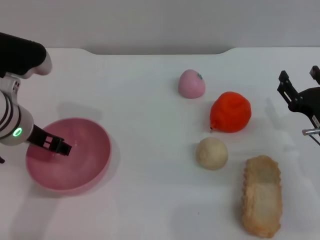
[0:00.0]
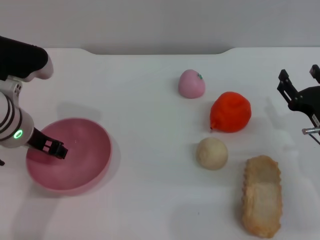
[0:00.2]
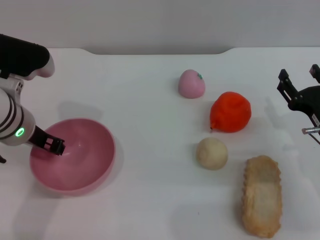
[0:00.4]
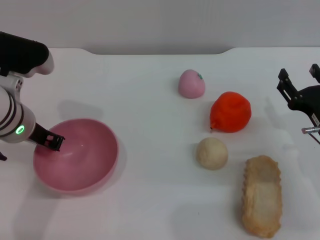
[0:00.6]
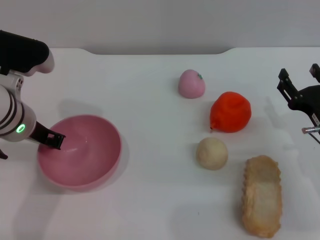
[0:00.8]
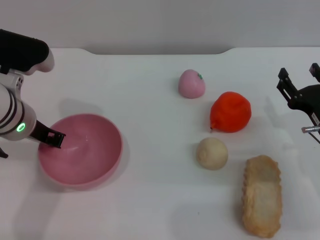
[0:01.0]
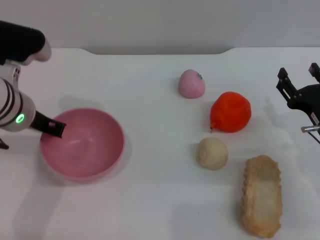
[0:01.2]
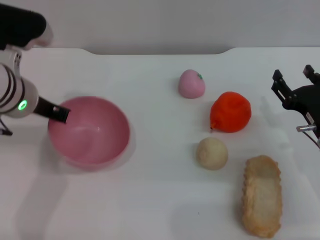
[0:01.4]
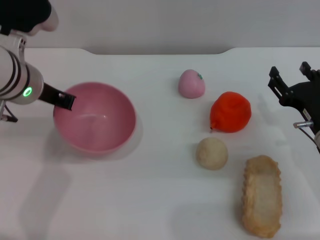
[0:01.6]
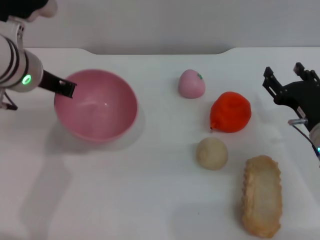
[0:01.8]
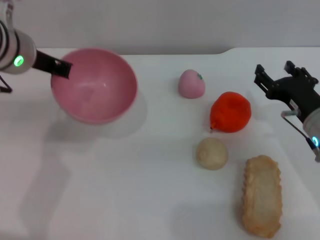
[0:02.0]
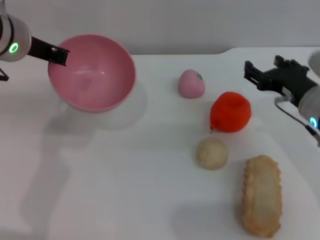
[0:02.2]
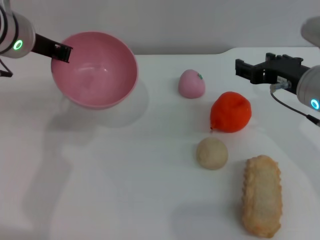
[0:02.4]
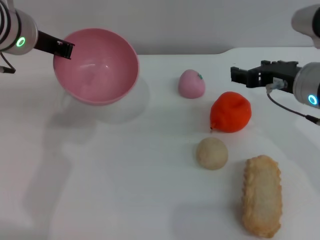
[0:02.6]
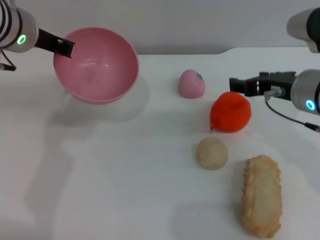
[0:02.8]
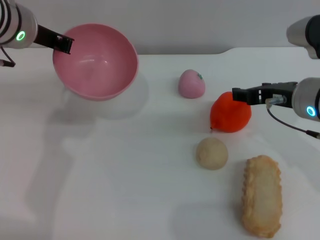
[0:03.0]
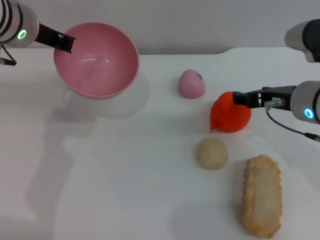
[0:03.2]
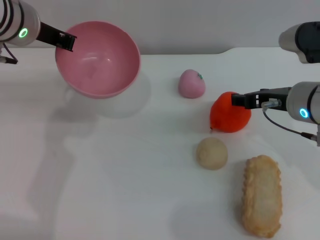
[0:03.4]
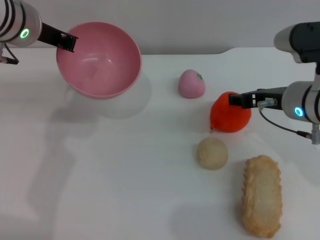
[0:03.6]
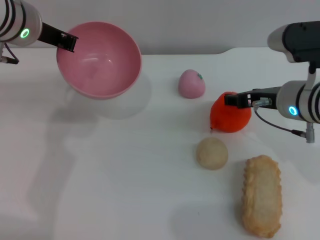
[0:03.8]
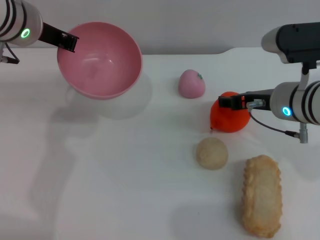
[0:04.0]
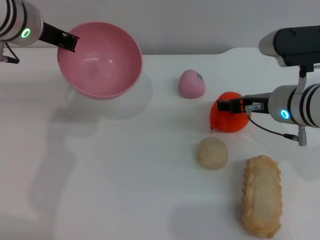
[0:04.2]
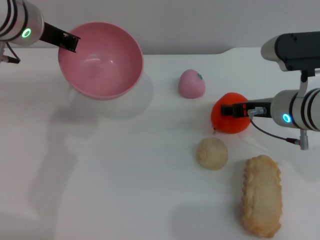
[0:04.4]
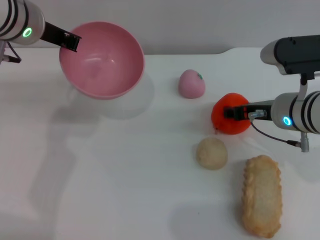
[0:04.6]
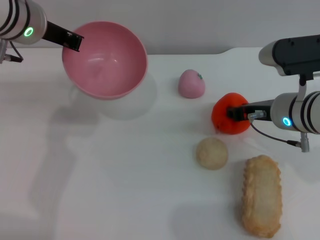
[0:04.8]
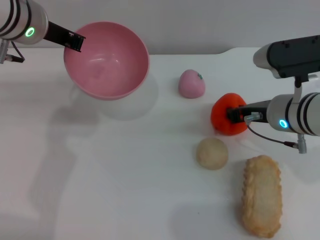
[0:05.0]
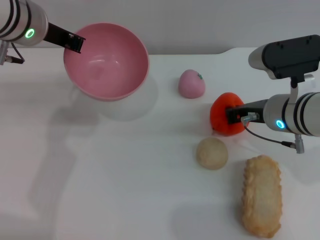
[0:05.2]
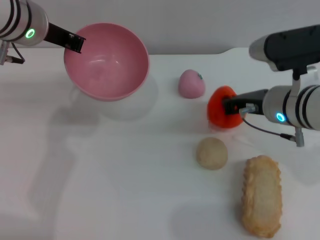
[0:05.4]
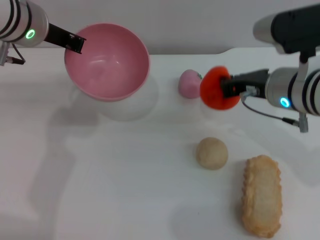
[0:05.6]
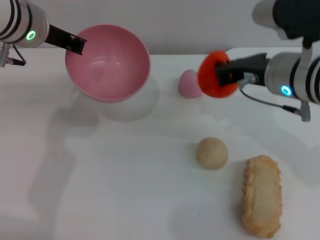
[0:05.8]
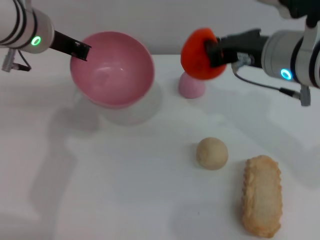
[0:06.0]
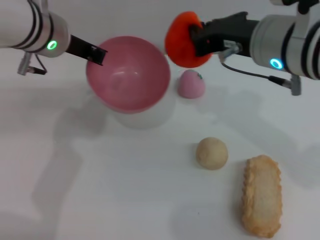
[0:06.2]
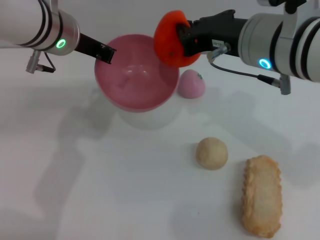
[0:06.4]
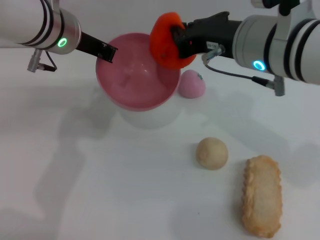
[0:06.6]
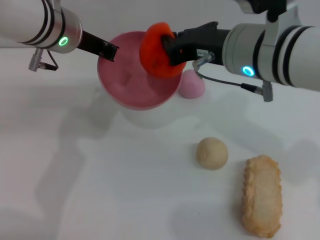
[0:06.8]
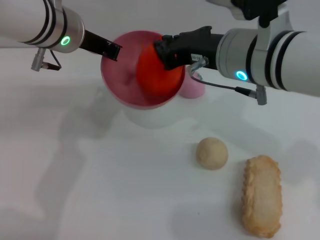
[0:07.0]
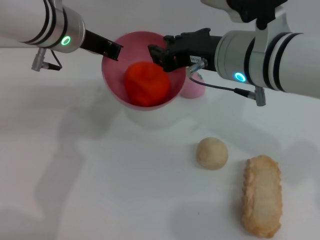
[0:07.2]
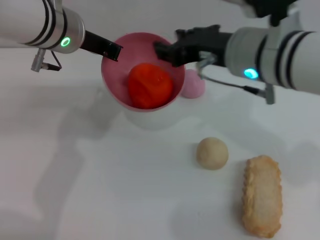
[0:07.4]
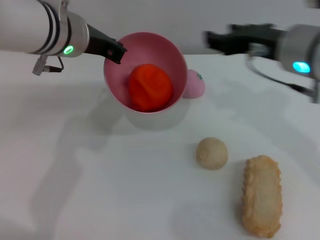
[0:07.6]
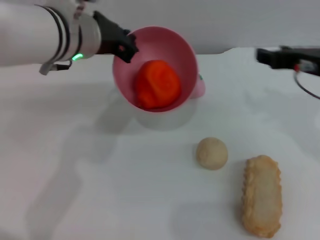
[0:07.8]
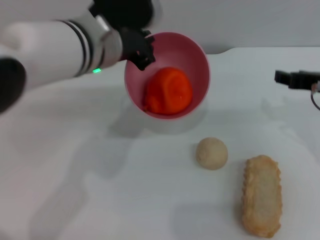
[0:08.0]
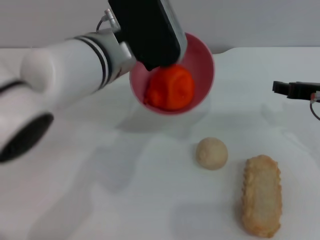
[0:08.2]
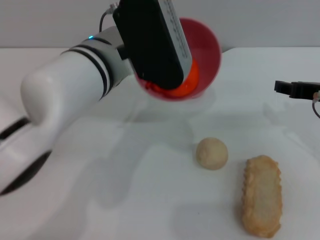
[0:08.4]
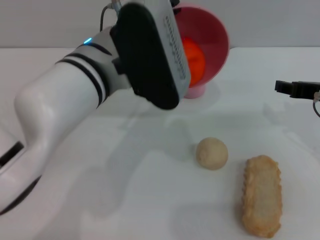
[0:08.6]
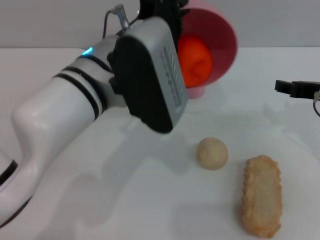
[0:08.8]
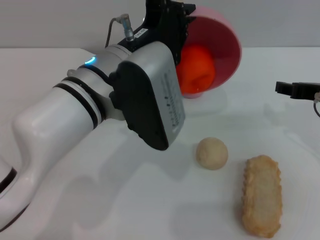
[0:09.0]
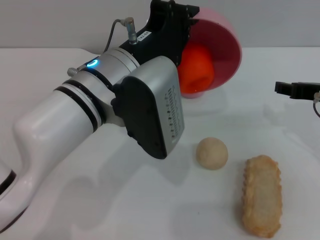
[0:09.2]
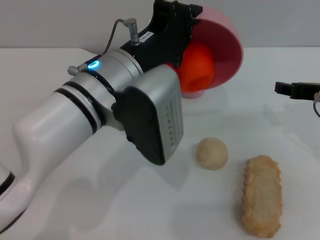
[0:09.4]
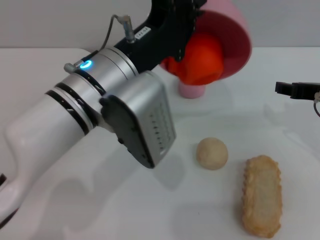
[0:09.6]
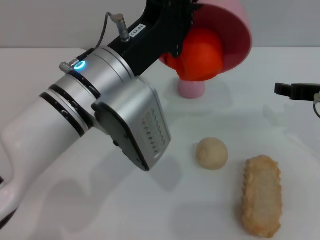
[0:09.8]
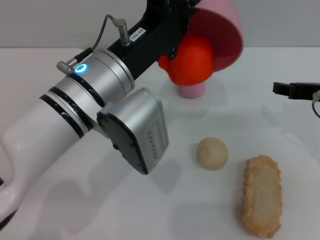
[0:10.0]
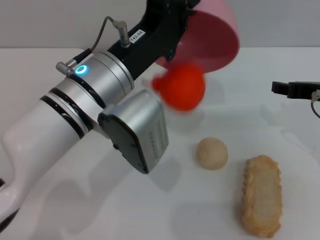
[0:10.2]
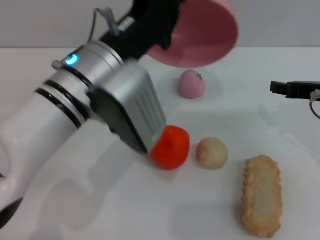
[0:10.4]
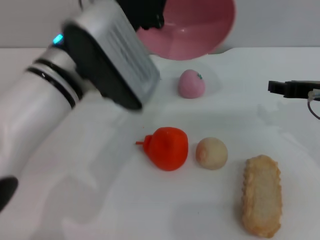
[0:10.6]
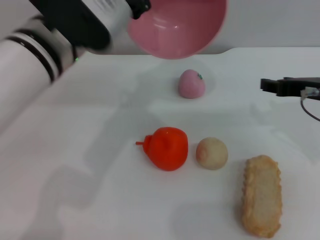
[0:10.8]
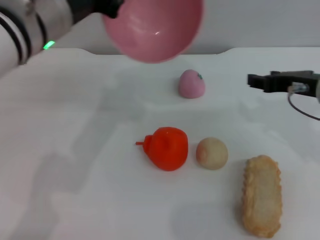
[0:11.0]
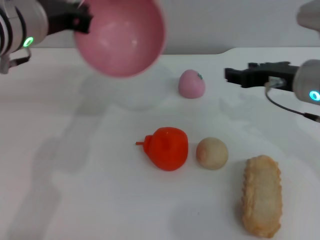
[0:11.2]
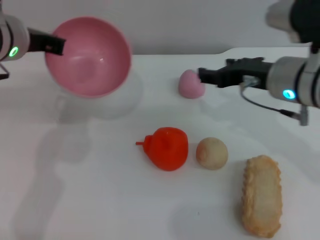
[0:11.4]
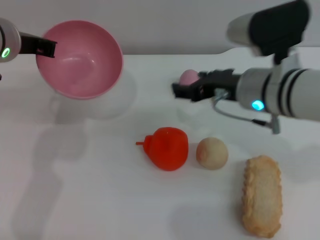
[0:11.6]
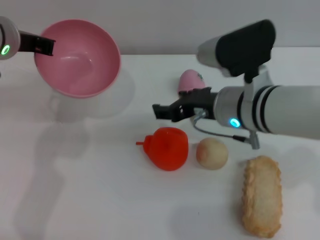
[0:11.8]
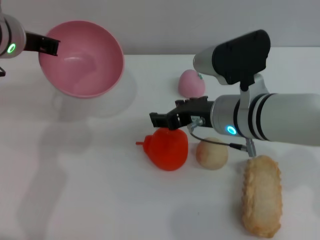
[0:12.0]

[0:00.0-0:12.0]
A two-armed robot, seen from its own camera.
Task of the whole recording: put the orange into the pink bowl and pour it out repeatedly.
Step, 0:02.0 to 0:05.6: Pick up the orange with the right gripper.
Step, 0:05.8 to 0:07.2: Place the orange into the bowl.
Step, 0:07.4 to 0:10.6: Pour the orange out of the bowl.
0:00.0 to 0:01.6: The left gripper closes up.
0:01.6 to 0:03.0: The left gripper moves roughly 5 cm. The right gripper is displaced upward and to the left by roughly 15 cm.
0:03.0 to 0:04.4: The right gripper shifts by approximately 5 cm.
0:04.4 to 0:06.0: The right gripper heads upward, covering roughly 10 cm, and closes its fingers.
0:06.0 to 0:07.6: The right gripper opens up.
0:07.6 to 0:09.0: The left gripper goes about 10 cm backward and to the right. Meanwhile the right gripper travels to the right and downward by about 10 cm.
0:10.4 to 0:12.0: The right gripper goes some 15 cm to the left. The left gripper travels to the left and forward by approximately 15 cm.

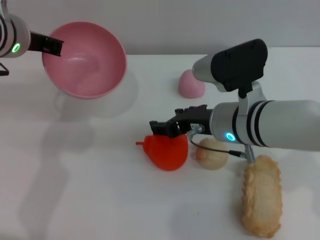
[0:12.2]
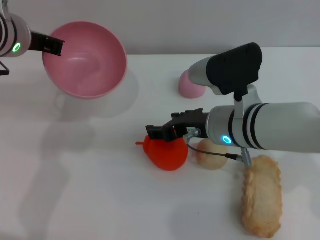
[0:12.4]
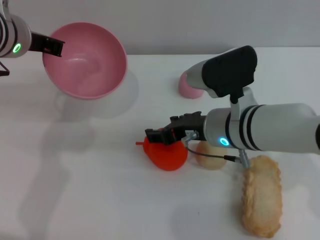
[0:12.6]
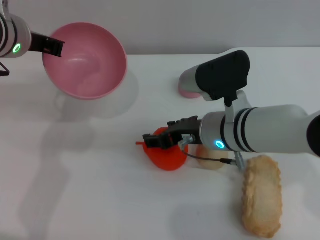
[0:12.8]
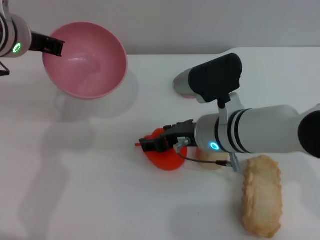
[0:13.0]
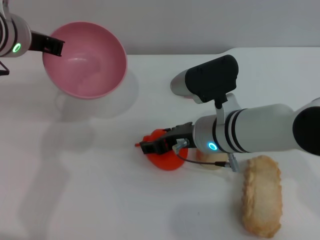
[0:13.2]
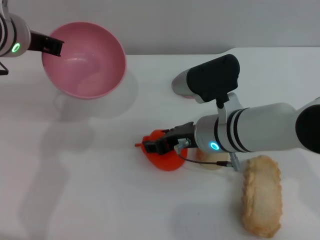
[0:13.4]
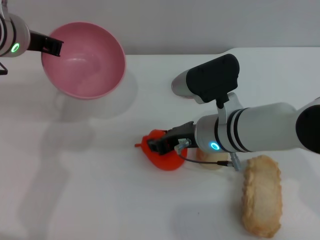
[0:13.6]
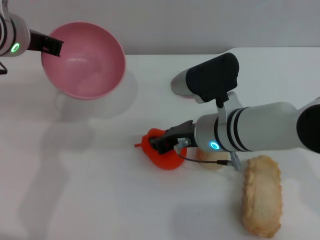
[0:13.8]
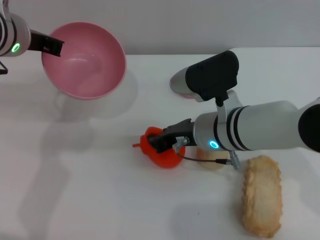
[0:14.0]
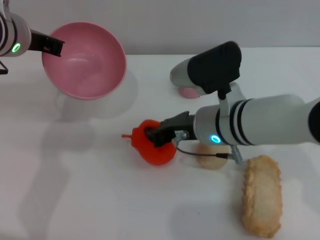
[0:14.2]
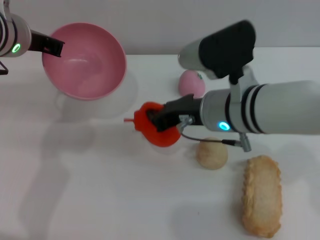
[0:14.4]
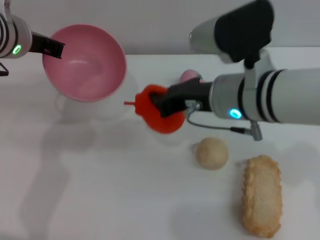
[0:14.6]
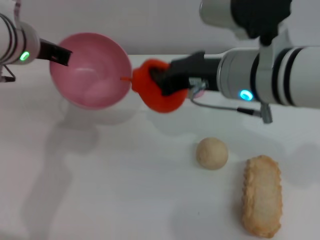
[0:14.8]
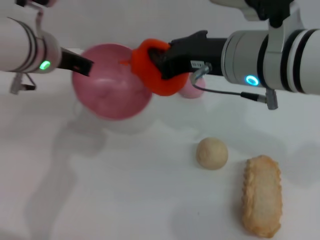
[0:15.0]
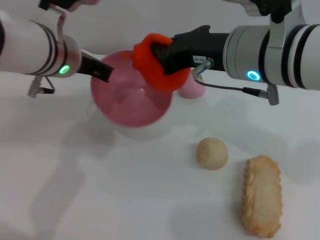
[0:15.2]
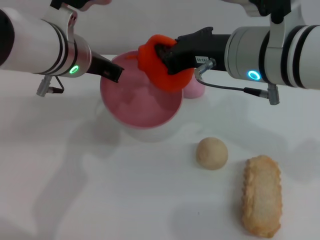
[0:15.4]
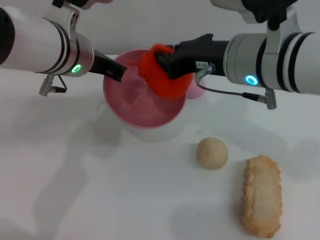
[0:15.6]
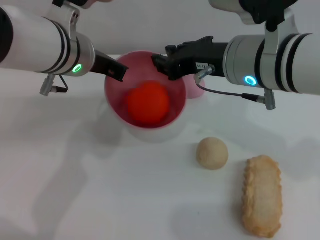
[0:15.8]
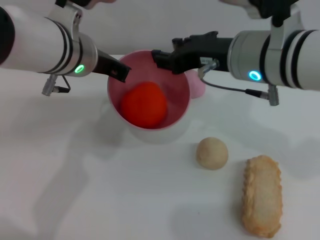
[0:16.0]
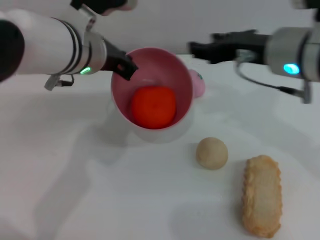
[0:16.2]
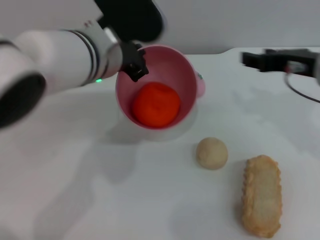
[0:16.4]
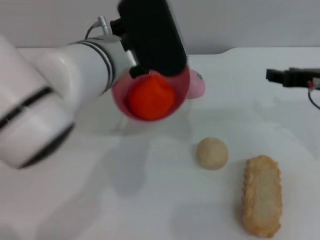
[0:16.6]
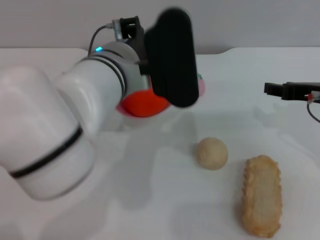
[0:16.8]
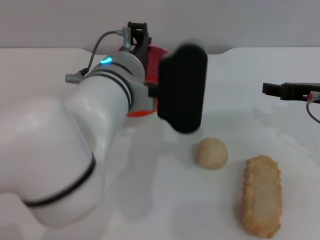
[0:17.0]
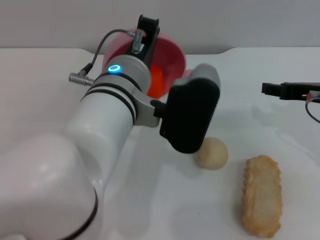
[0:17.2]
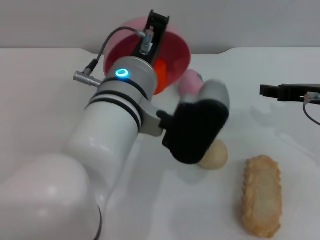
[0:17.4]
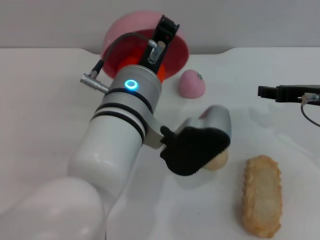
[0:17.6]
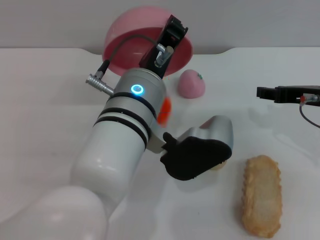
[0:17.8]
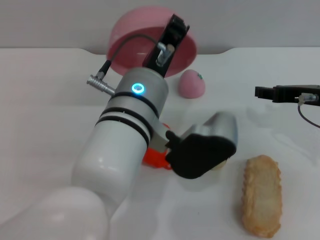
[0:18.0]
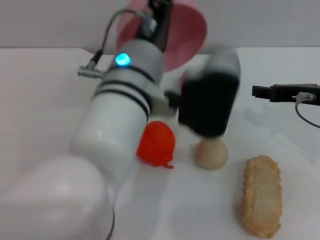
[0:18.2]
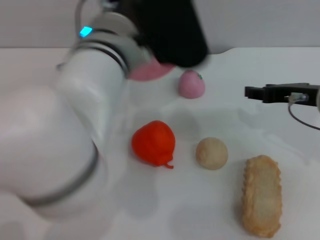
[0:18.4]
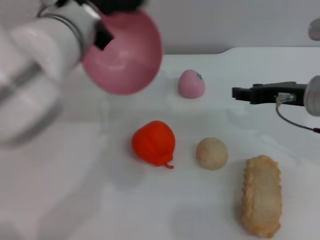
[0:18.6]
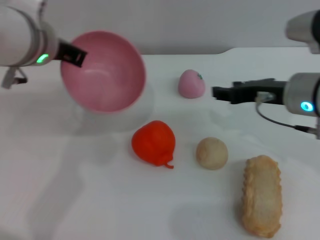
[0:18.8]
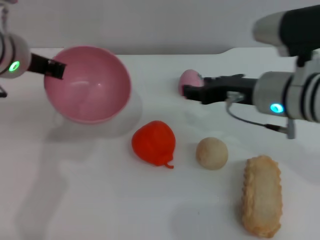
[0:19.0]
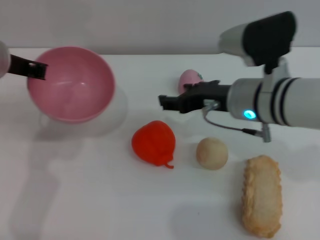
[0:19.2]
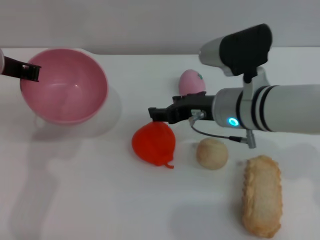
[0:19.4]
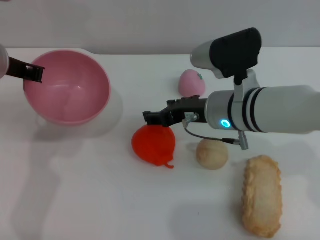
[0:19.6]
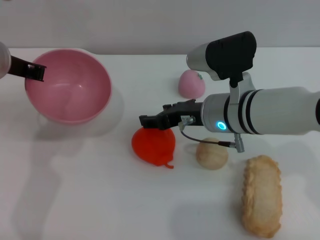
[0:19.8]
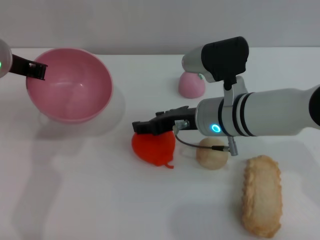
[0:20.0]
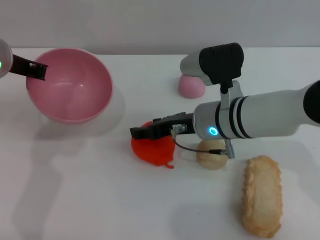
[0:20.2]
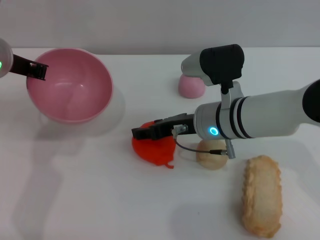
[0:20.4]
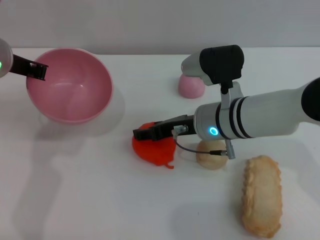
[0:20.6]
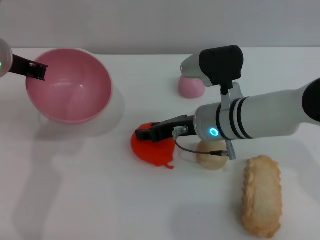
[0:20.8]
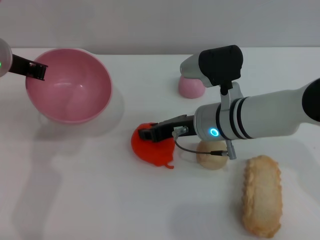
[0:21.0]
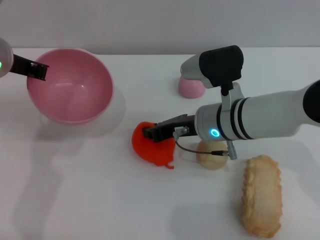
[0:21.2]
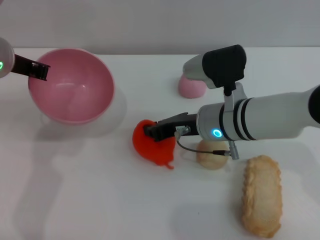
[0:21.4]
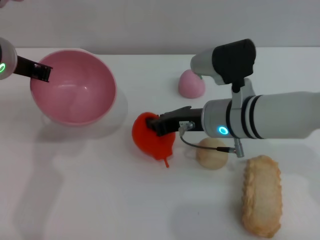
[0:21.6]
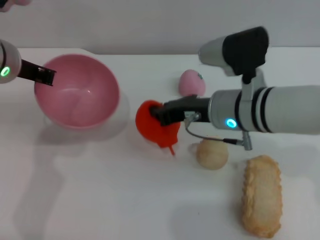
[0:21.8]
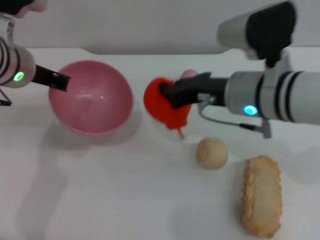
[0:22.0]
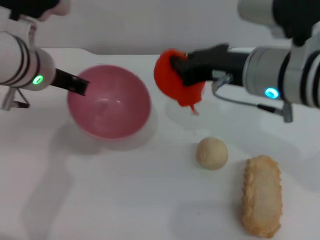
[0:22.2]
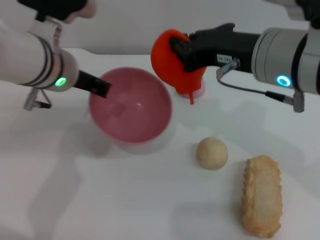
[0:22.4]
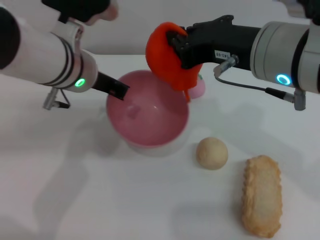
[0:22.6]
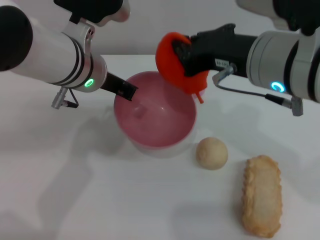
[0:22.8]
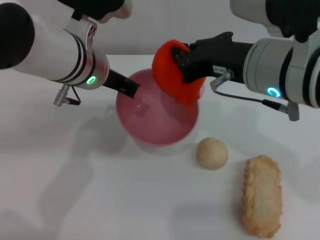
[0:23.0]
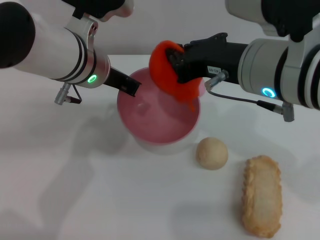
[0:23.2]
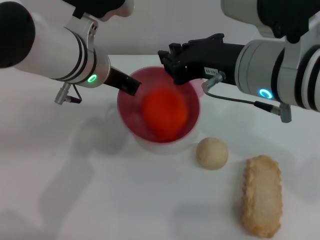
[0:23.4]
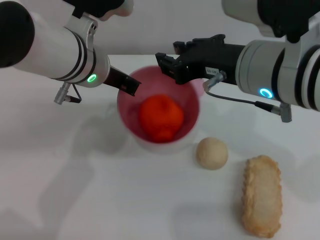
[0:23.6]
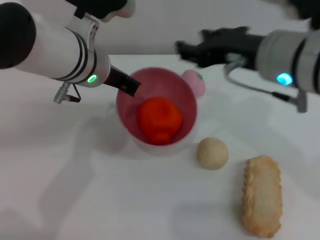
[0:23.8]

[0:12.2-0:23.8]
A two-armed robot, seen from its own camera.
Task of the whole recording: put the orange into the pink bowl and pour it out repeatedly.
Step, 0:12.2 to 0:14.6: Pick up the orange with the right gripper.
Step, 0:14.8 to 0:15.8: Place the orange into the bowl.
Step, 0:16.0 to 0:18.0: Pour the orange out of the bowl.
Step, 0:18.2 to 0:21.8: Pick up the orange with the right gripper.
Step, 0:22.0 to 0:23.6: Place the orange into the bowl.
0:12.2 to 0:13.6: The grippers stay close to where they were, moving slightly.
0:13.6 to 0:15.0: The right gripper goes some 15 cm upward, and closes.
0:15.0 to 0:16.6: The left gripper moves to the right, some 10 cm. Meanwhile the right gripper shifts approximately 15 cm to the right and downward, and opens its fingers.
0:16.6 to 0:18.0: The left gripper moves backward, roughly 5 cm.
0:18.0 to 0:19.4: The right gripper shifts approximately 15 cm to the left. Meanwhile the left gripper travels to the left and forward by approximately 20 cm.
0:19.4 to 0:21.0: The right gripper closes its fingers.
0:21.0 to 0:22.4: The left gripper shifts some 5 cm to the right. Meanwhile the right gripper goes roughly 15 cm upward, and closes its fingers.
0:22.4 to 0:23.8: The right gripper opens.
